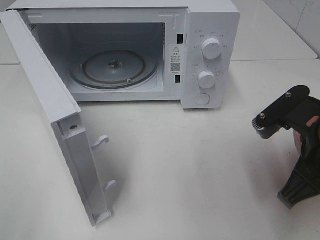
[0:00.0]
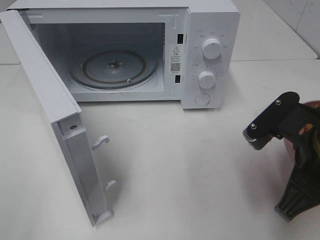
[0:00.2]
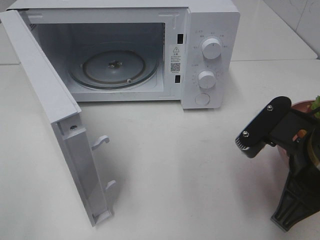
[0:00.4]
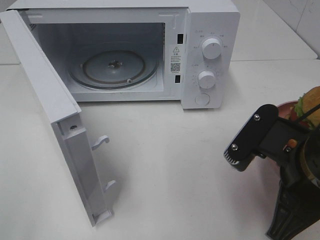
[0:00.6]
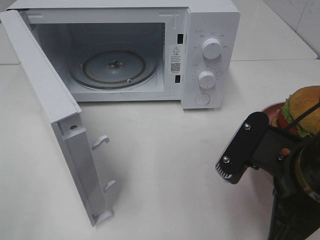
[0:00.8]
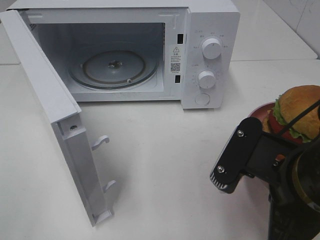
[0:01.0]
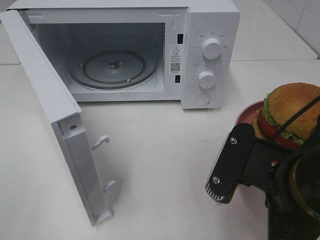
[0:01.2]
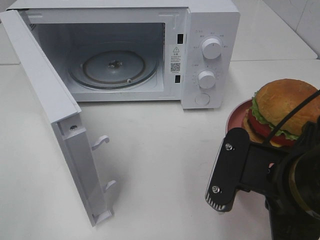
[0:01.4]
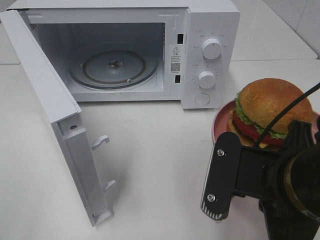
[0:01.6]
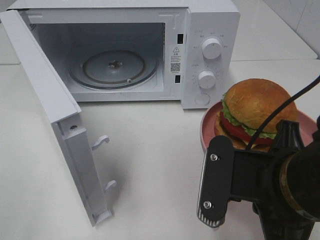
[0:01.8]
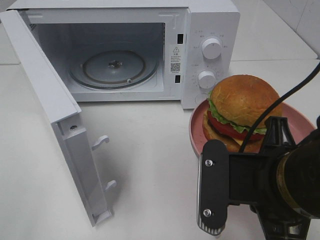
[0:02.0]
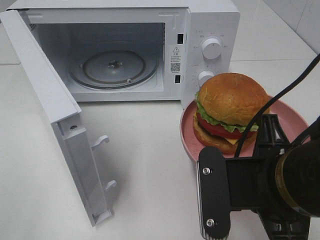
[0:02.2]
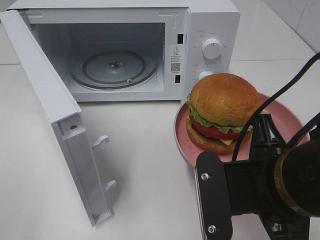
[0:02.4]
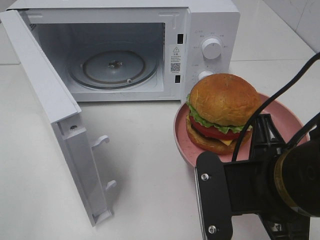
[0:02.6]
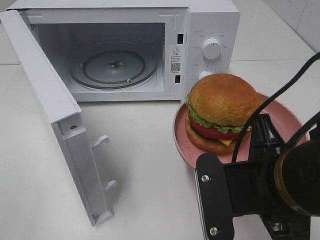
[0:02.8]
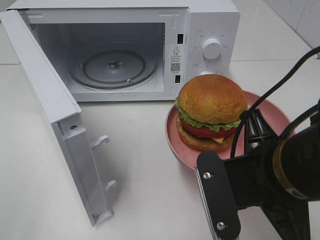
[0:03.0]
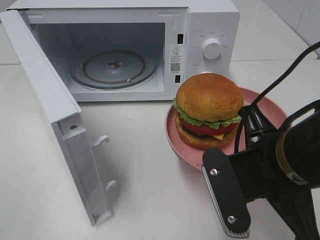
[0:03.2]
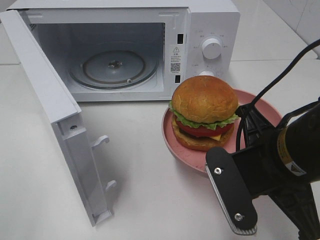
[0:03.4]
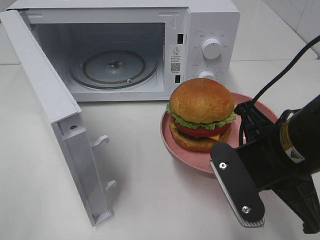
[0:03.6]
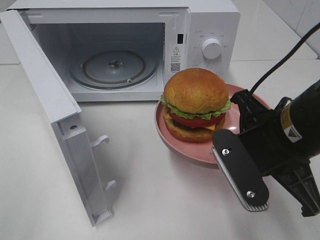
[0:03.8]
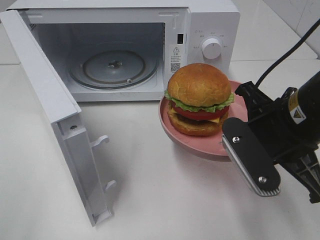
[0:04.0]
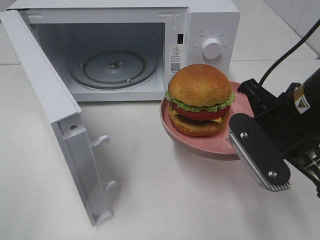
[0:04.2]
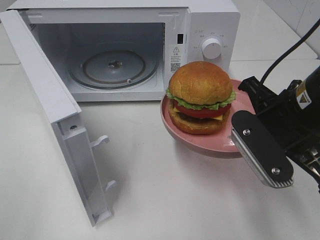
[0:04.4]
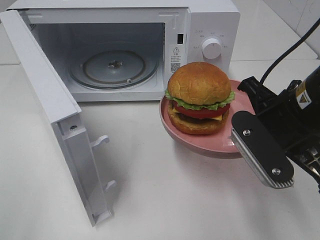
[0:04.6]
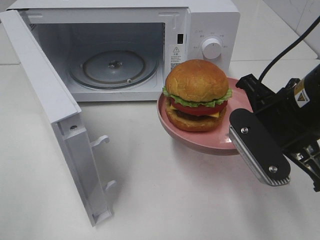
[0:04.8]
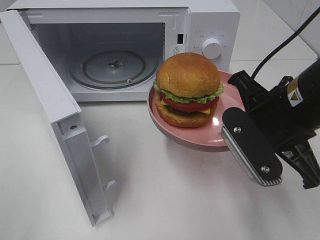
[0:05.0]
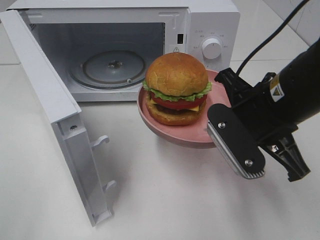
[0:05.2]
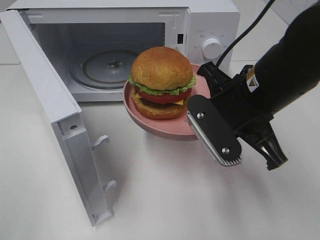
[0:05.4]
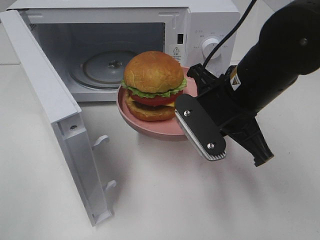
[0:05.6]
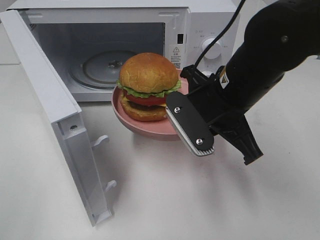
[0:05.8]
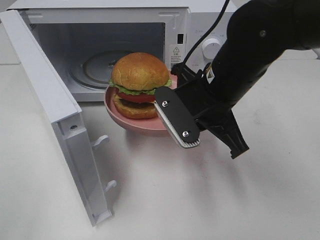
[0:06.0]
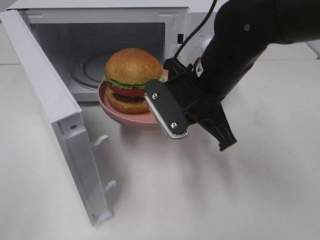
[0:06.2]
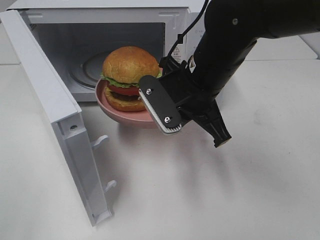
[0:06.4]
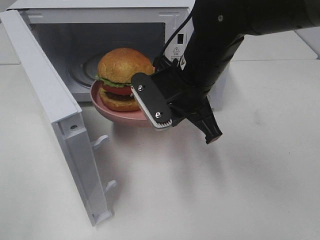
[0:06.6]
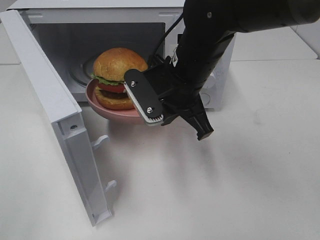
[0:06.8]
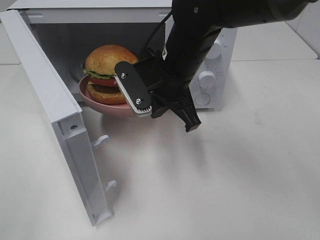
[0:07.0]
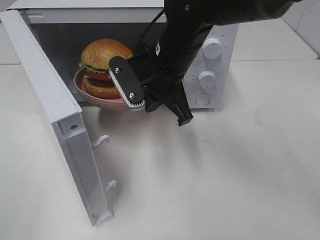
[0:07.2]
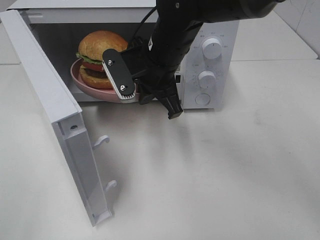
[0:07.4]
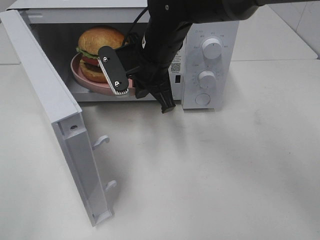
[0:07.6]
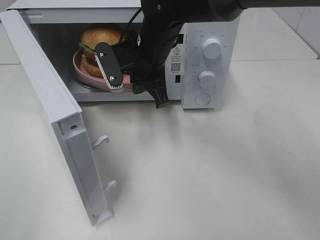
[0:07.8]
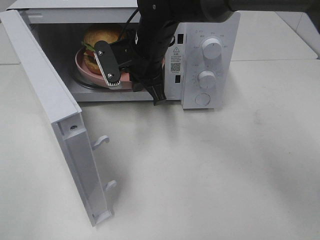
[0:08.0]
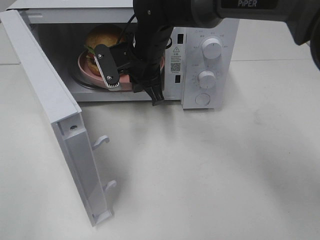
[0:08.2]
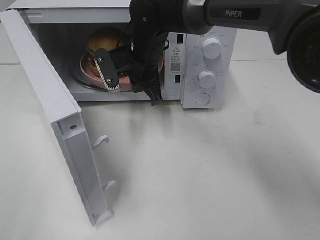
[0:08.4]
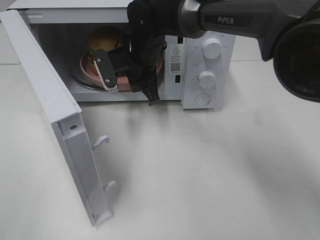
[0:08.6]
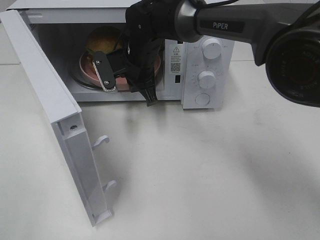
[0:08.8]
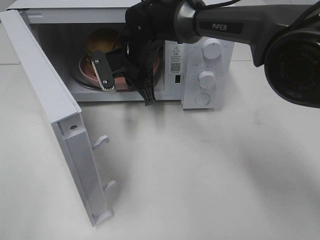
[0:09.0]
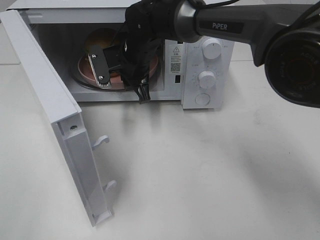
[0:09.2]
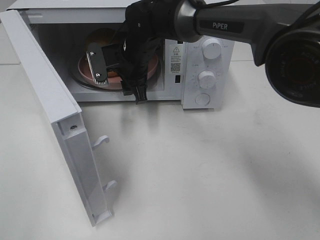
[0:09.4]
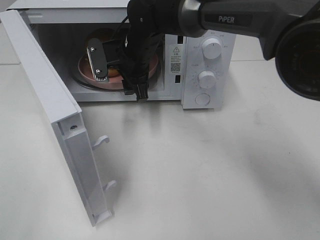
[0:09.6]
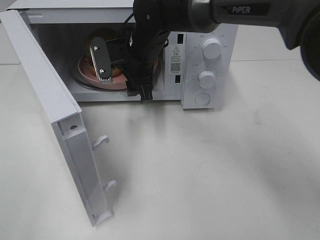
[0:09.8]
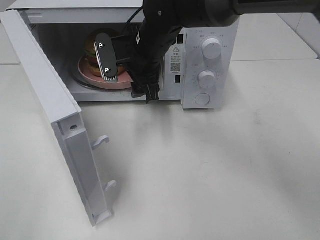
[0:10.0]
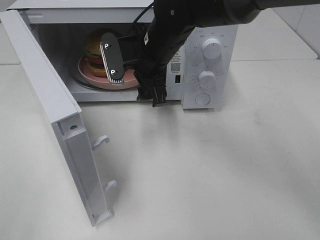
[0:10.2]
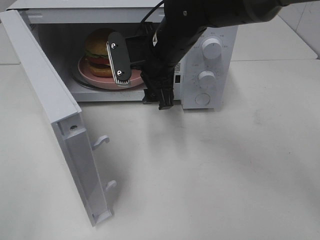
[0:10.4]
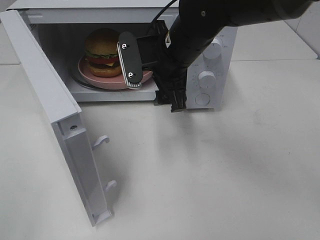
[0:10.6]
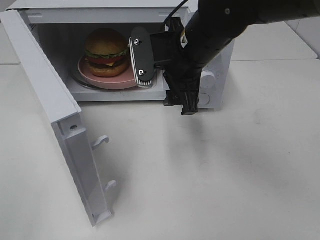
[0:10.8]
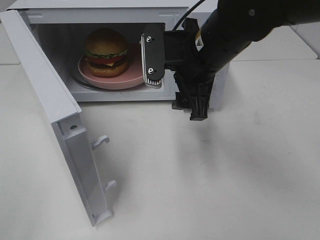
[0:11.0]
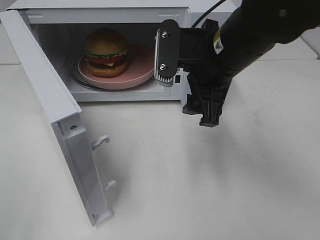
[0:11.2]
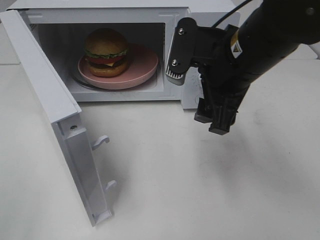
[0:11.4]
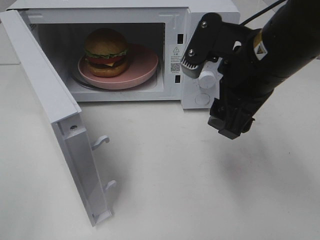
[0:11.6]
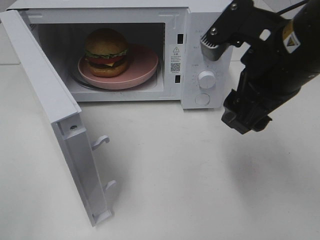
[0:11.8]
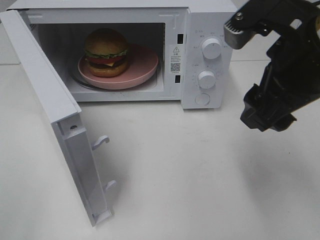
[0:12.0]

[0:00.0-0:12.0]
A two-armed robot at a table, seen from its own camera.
Task of the whole recording: Heat the burger.
Step, 0:00.0 to 0:09.2: Right hand: place the plate in the microwave.
0:00.0 to 0:01.6: The right gripper shifts approximately 10 cm to the left and backward.
0:03.0 to 0:04.4: The right gripper heads forward, covering some 5 cm.
0:04.4 to 0:06.0: The right gripper shifts roughly 10 cm to the left and forward.
0:06.0 to 0:07.6: The right gripper shifts some 15 cm forward and to the left.
0:07.6 to 0:09.0: The right gripper is displaced forward by approximately 5 cm.
0:09.0 to 0:10.4: The right gripper goes roughly 10 cm backward and to the right, and opens its fingers.
0:10.4 to 0:12.0: The right gripper moves backward, to the right and upward, roughly 20 cm.

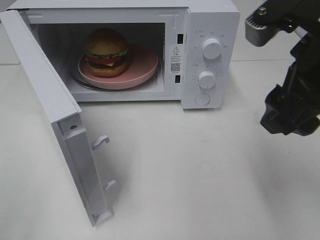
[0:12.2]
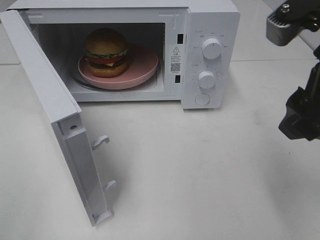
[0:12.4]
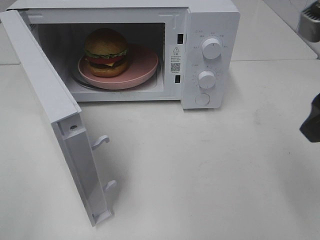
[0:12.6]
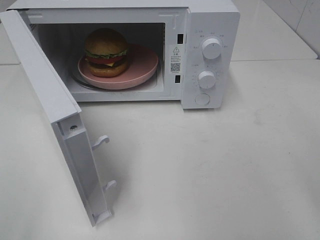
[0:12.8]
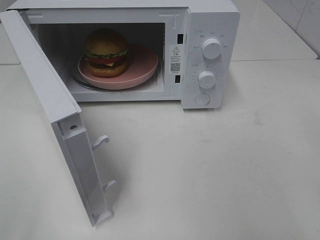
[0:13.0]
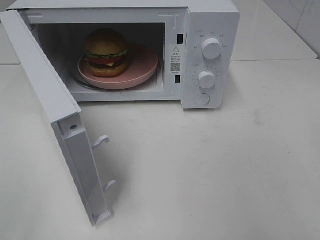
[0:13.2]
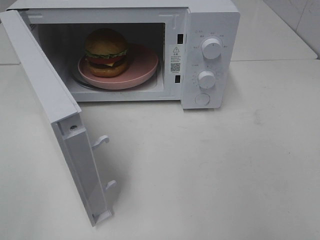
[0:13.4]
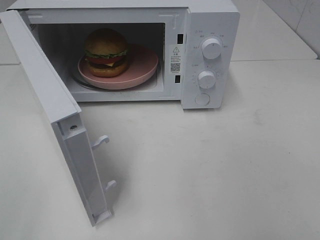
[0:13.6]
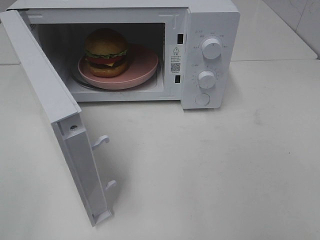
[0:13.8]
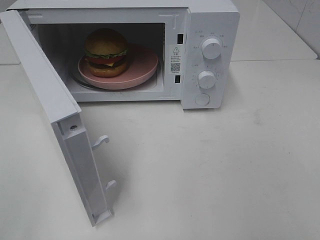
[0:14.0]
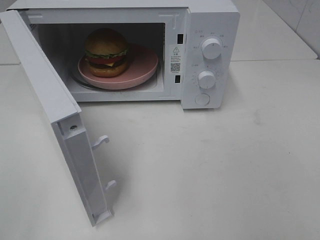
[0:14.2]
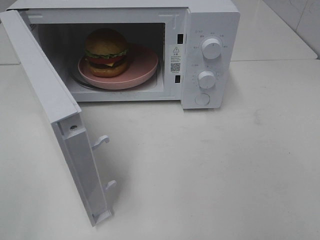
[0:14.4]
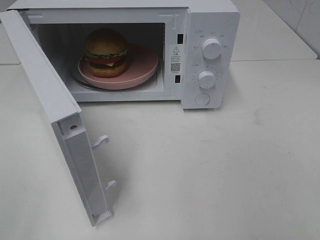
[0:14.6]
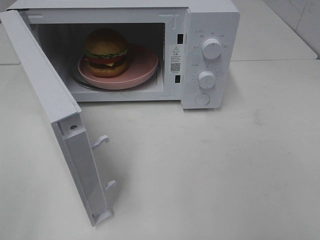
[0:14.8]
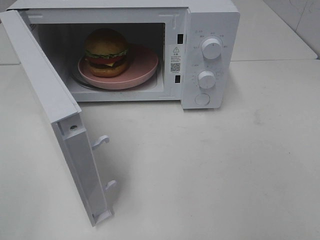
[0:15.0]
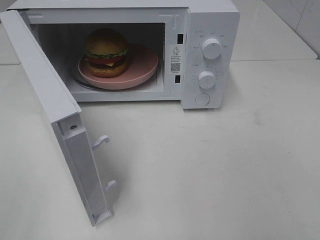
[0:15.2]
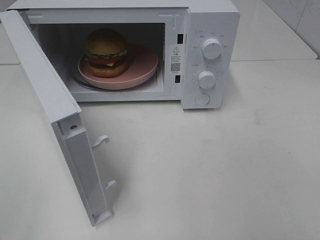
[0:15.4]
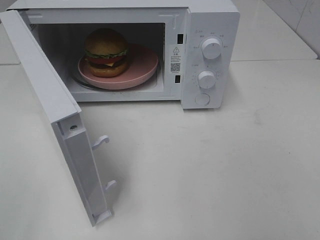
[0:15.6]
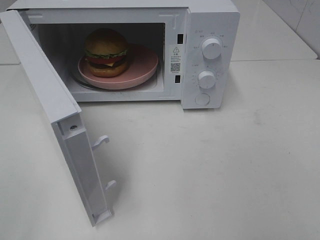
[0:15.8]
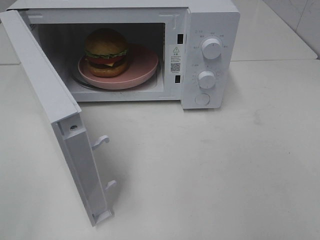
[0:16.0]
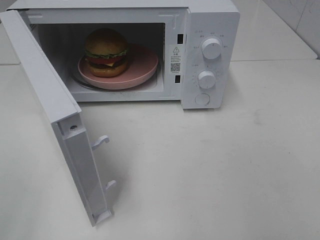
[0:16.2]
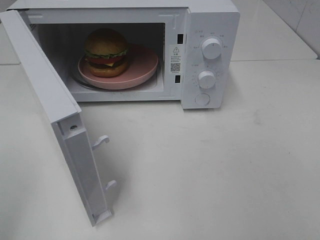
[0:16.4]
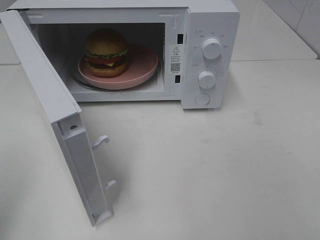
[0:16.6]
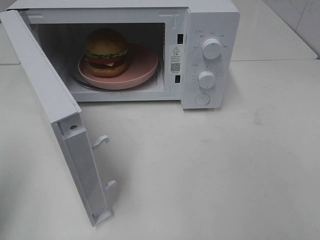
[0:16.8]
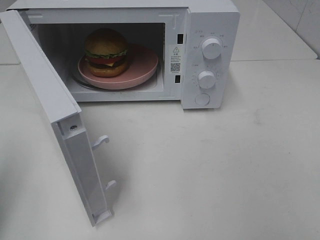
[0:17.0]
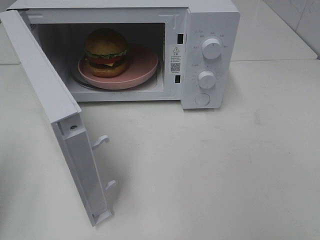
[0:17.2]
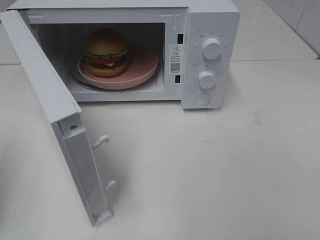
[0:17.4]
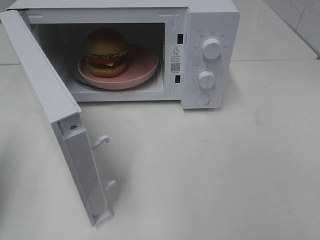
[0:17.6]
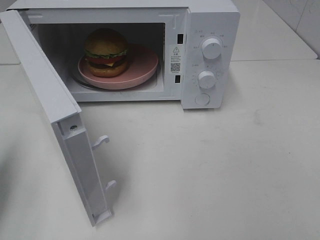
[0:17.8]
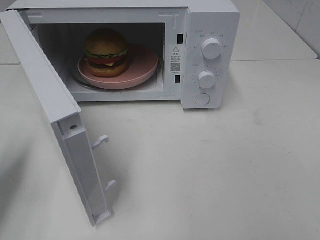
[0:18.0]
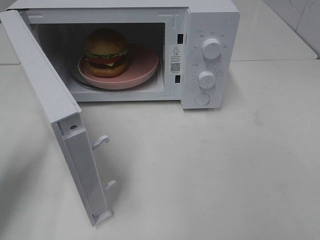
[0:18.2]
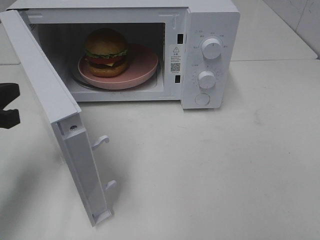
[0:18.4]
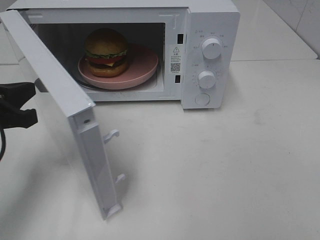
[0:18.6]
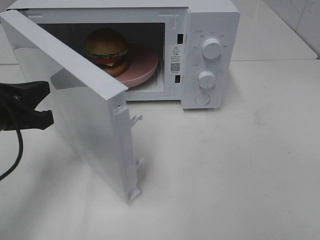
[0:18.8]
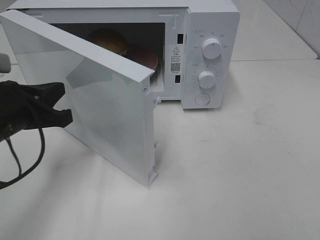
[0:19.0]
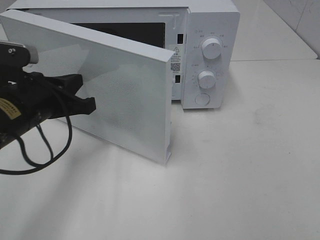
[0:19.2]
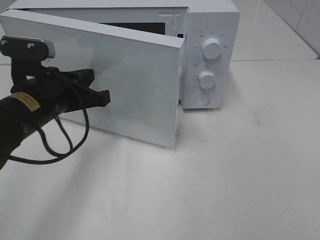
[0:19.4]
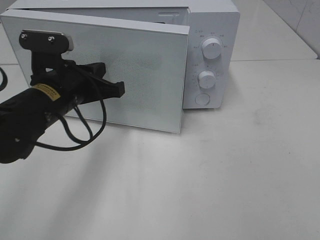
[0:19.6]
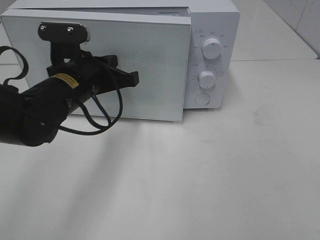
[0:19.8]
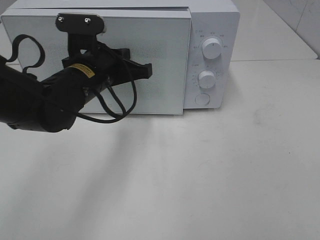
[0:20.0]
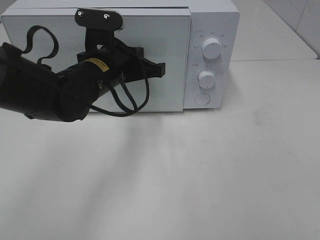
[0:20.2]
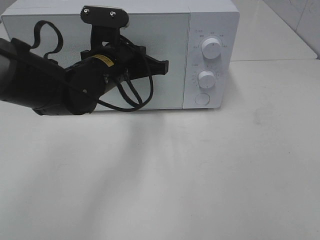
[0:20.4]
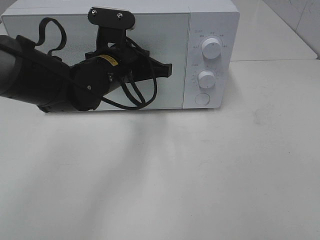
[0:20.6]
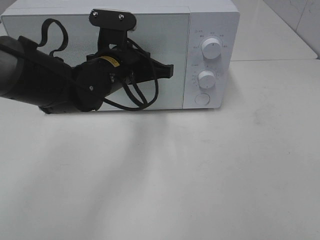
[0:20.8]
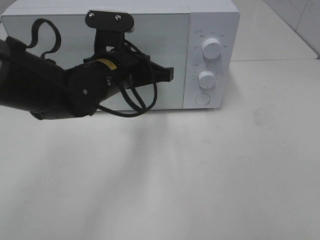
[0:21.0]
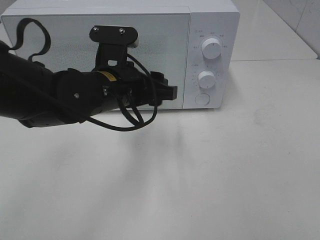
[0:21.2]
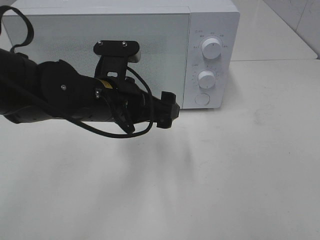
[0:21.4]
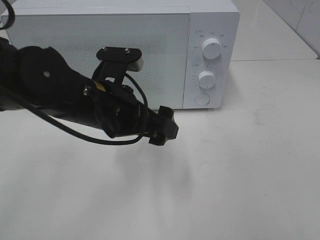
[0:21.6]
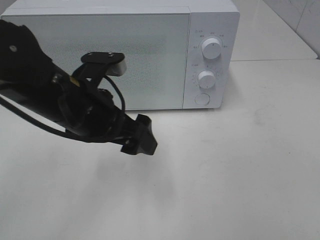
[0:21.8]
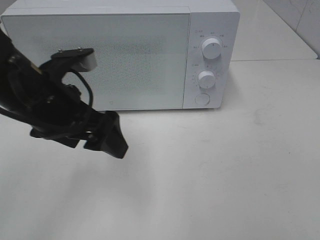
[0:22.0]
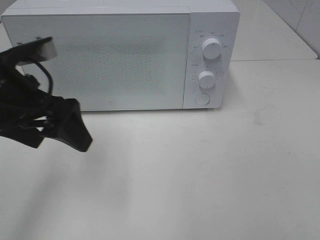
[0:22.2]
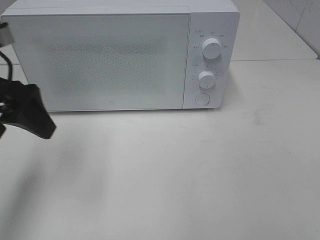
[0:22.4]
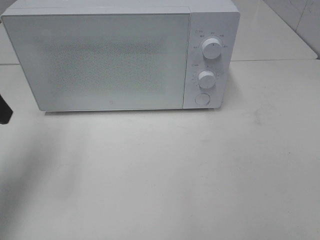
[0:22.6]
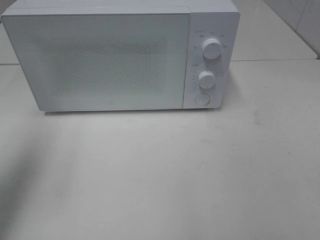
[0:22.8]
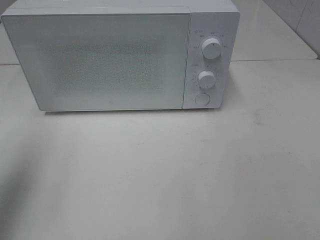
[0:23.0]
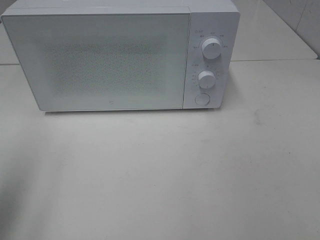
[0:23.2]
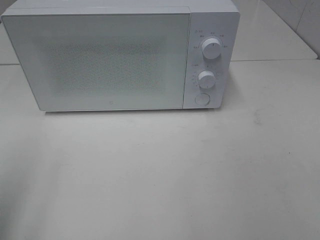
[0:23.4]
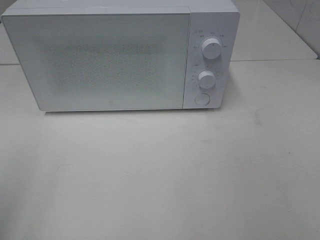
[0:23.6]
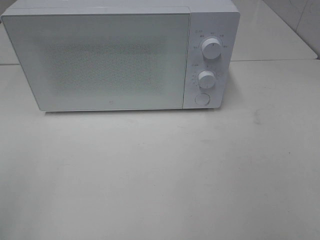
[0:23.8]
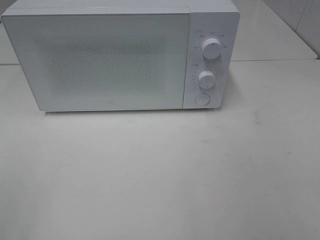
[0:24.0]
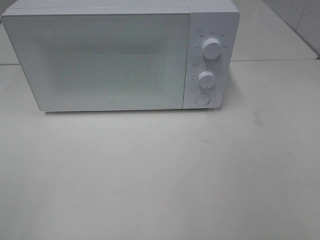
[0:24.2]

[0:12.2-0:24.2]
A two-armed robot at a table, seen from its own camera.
Task of the whole recording: Heat the burger.
Step, 0:12.2 to 0:21.0: Left hand: close the microwave door.
0:12.2 to 0:13.8: The right gripper travels backward and to the right by roughly 20 cm.
0:16.6 to 0:18.2: The left gripper goes roughly 15 cm forward and downward.
0:18.2 to 0:19.8: The left gripper moves to the right and forward, roughly 20 cm.
0:19.8 to 0:21.2: The left gripper moves to the right, about 5 cm, and opens its fingers.
0:21.2 to 0:22.6: The left gripper travels to the left and upward by about 25 cm.
0:22.6 to 0:24.2: The left gripper travels backward by some 25 cm.
